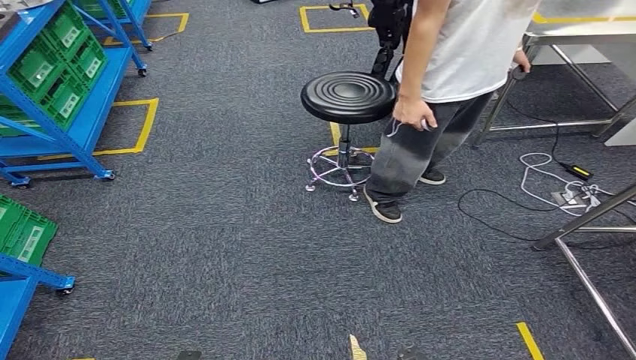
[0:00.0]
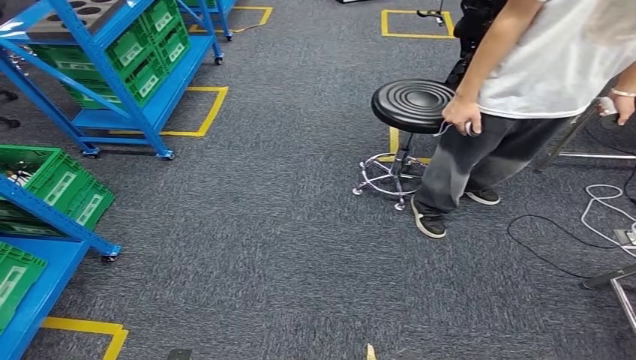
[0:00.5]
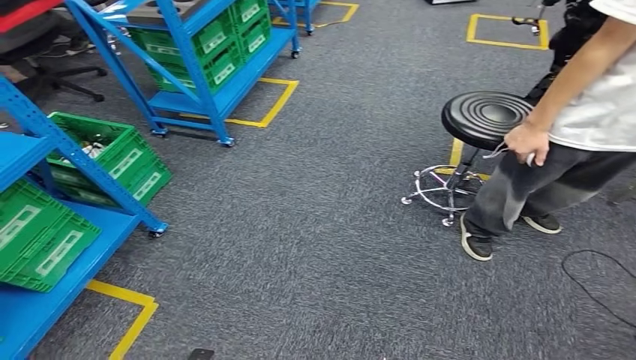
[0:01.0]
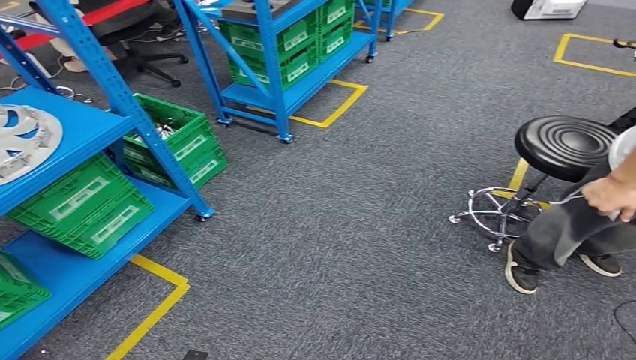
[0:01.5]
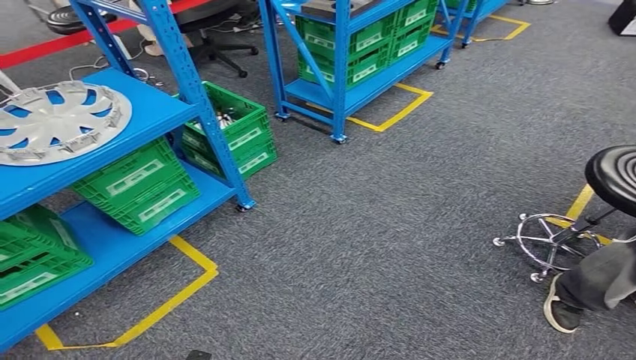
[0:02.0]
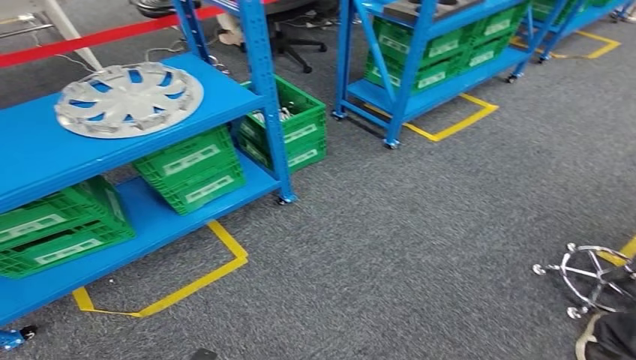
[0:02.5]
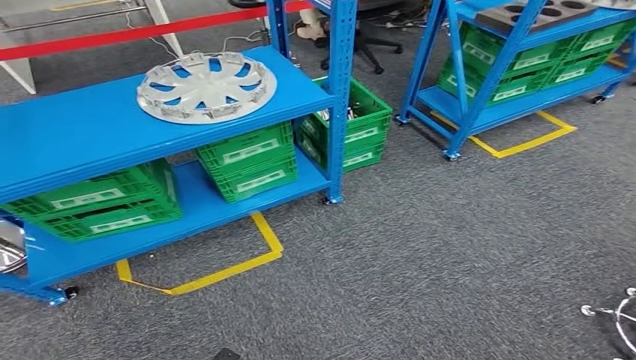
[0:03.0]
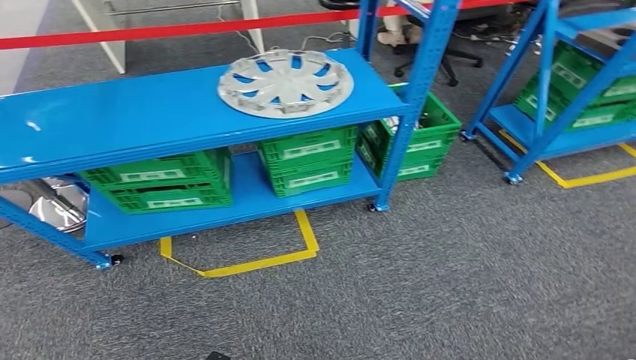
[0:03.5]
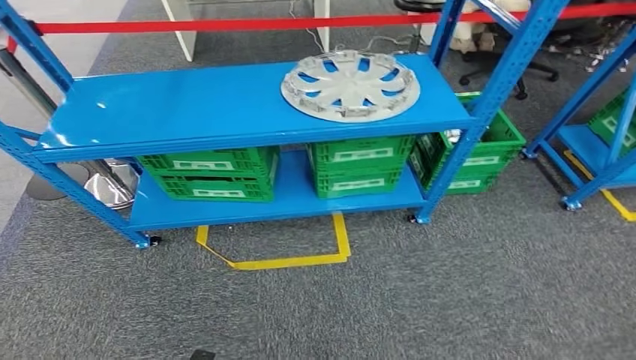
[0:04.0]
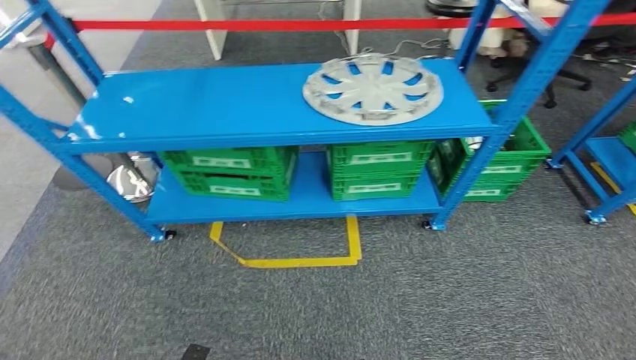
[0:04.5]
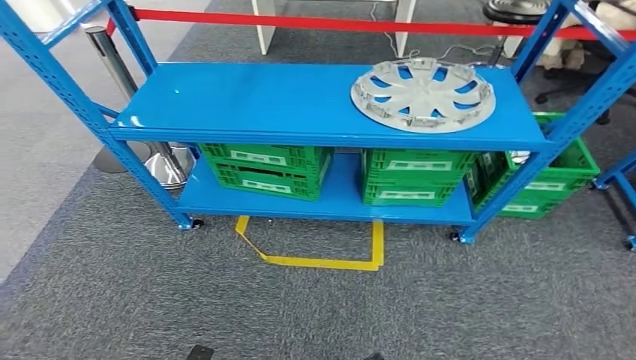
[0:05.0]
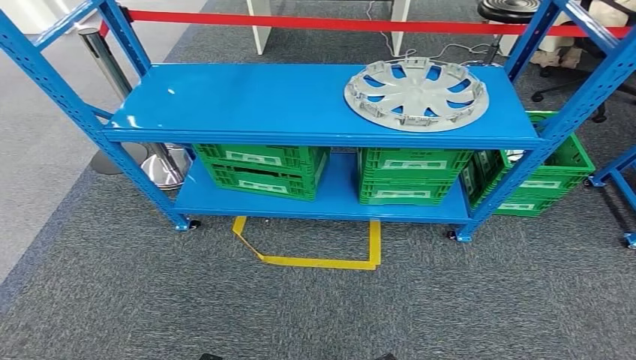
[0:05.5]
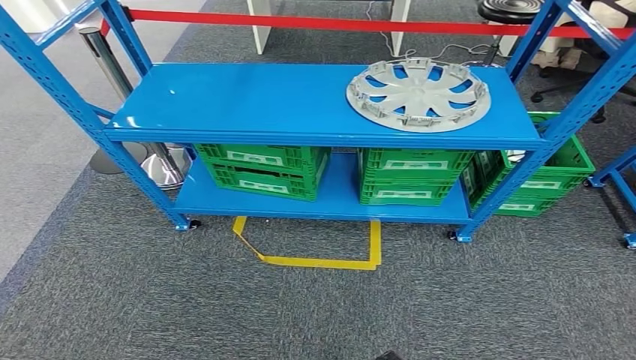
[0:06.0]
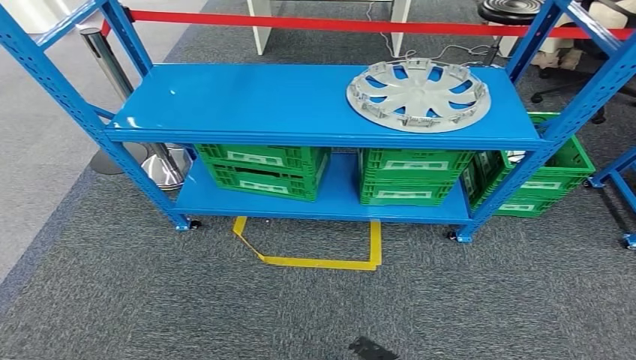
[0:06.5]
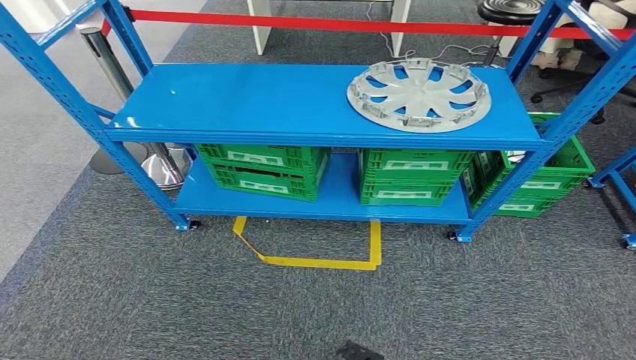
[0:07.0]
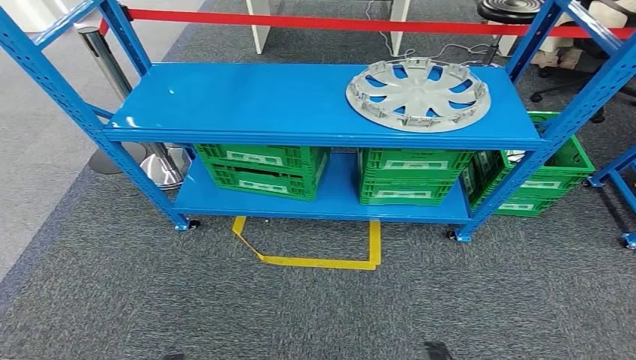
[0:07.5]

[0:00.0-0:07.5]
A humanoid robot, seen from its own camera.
Step, 0:00.0 to 0:07.5: Move to the initial position of the workbench.
